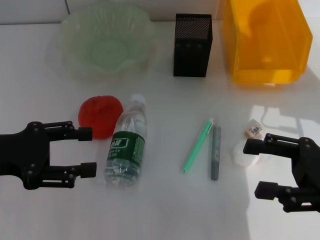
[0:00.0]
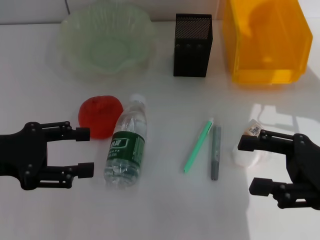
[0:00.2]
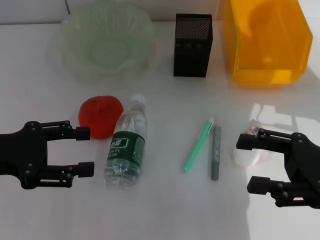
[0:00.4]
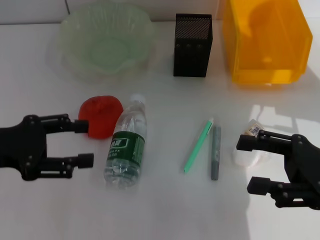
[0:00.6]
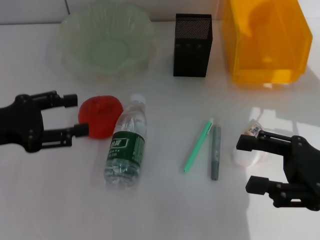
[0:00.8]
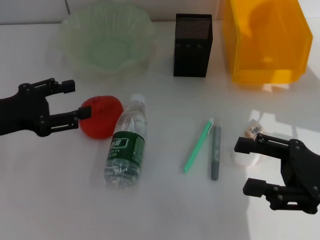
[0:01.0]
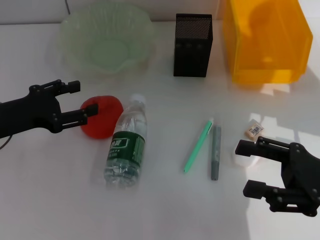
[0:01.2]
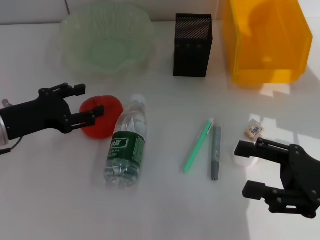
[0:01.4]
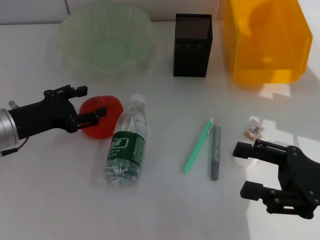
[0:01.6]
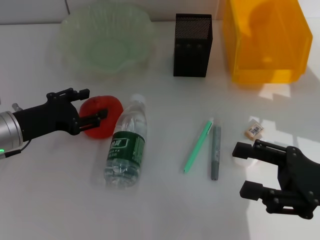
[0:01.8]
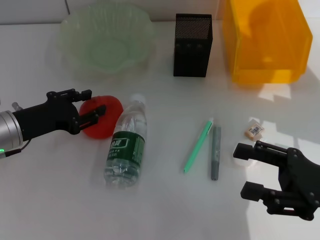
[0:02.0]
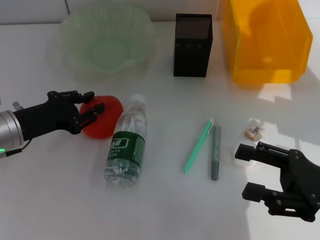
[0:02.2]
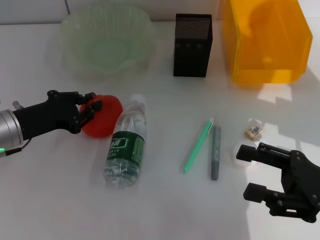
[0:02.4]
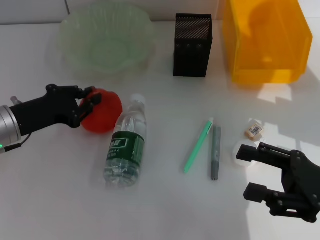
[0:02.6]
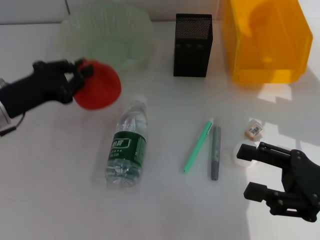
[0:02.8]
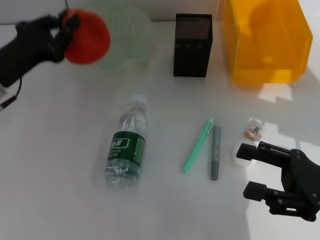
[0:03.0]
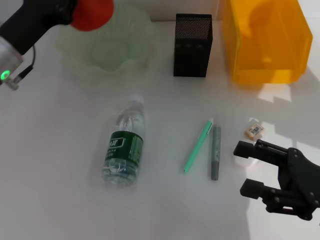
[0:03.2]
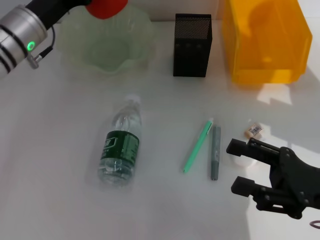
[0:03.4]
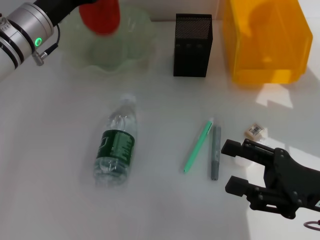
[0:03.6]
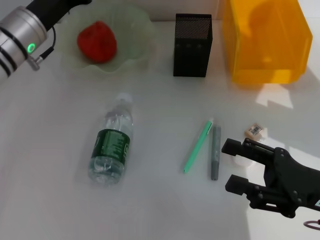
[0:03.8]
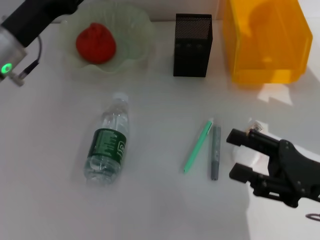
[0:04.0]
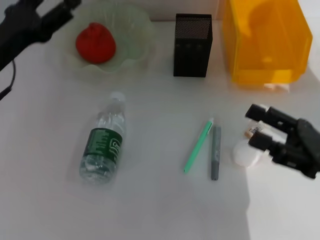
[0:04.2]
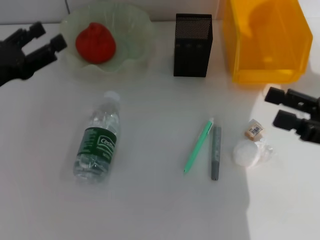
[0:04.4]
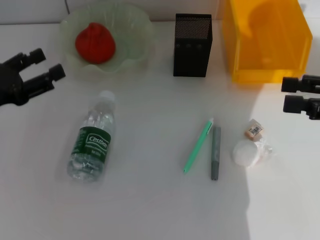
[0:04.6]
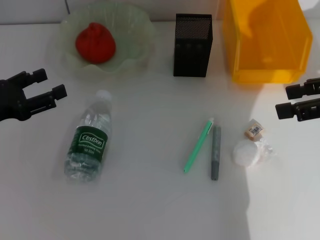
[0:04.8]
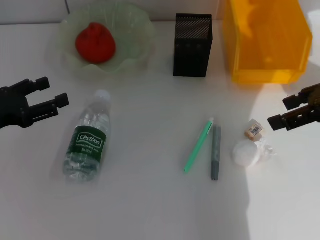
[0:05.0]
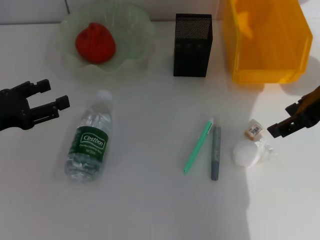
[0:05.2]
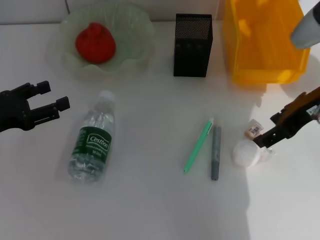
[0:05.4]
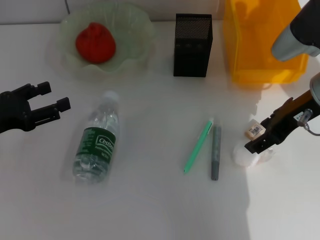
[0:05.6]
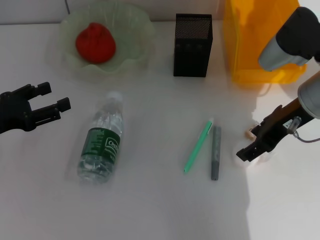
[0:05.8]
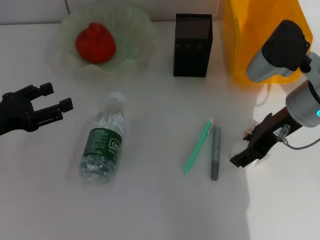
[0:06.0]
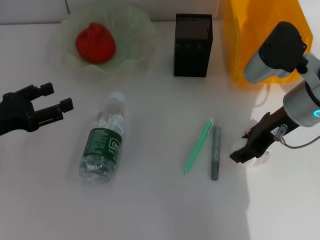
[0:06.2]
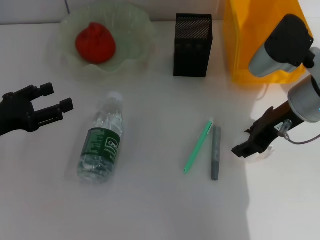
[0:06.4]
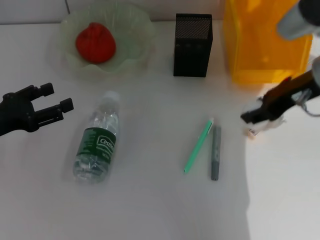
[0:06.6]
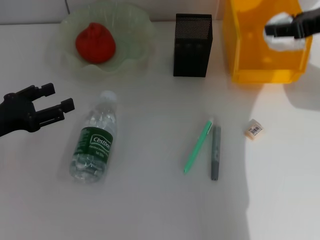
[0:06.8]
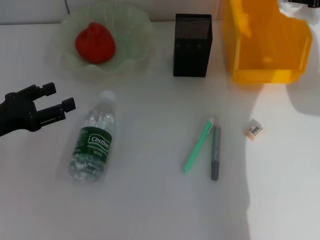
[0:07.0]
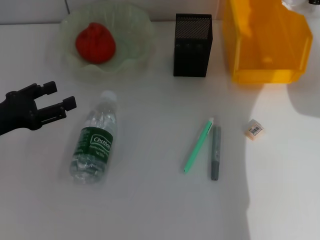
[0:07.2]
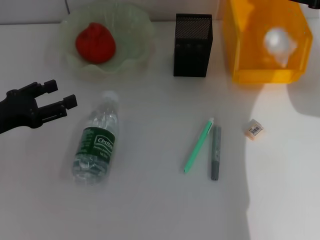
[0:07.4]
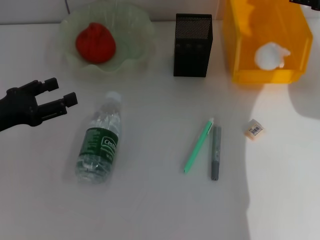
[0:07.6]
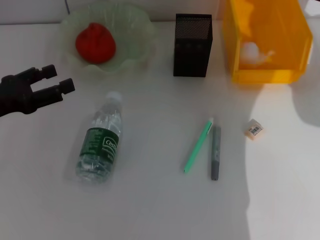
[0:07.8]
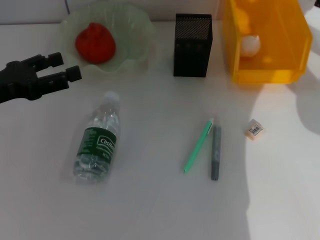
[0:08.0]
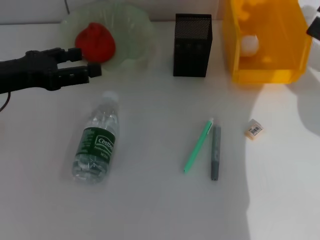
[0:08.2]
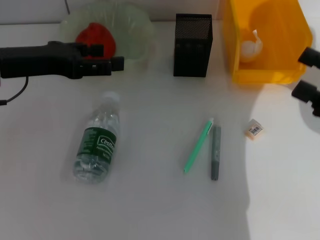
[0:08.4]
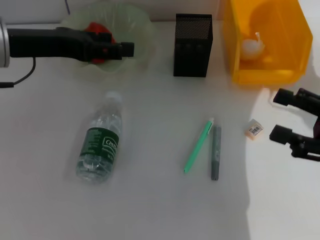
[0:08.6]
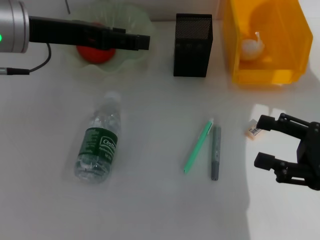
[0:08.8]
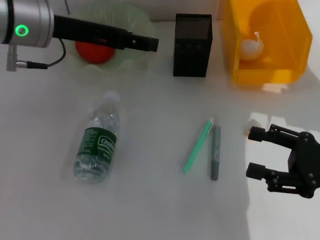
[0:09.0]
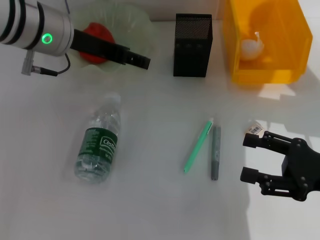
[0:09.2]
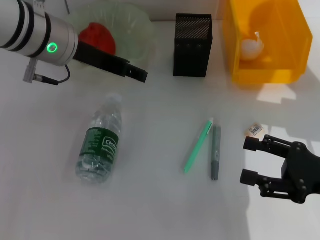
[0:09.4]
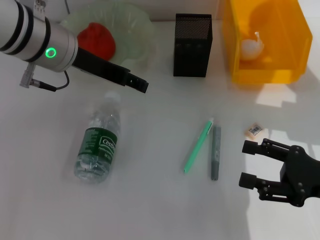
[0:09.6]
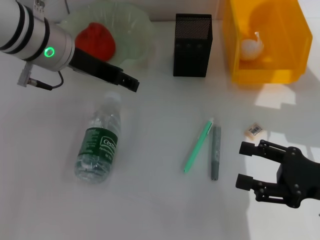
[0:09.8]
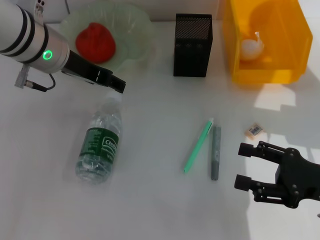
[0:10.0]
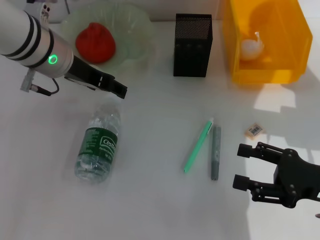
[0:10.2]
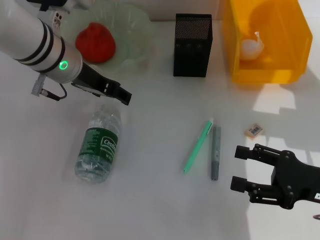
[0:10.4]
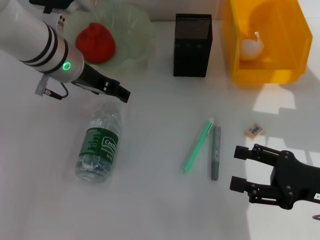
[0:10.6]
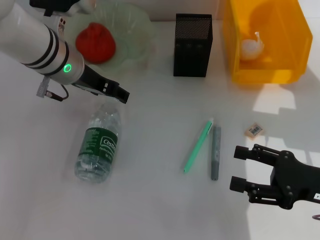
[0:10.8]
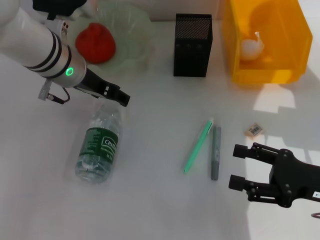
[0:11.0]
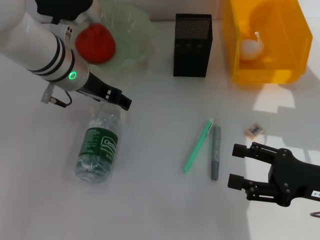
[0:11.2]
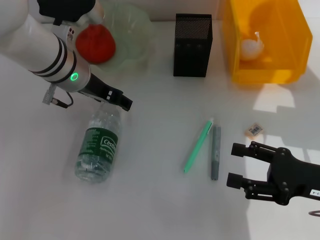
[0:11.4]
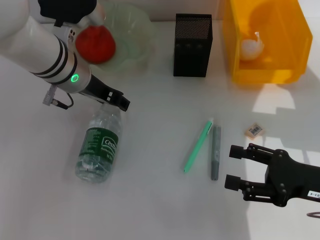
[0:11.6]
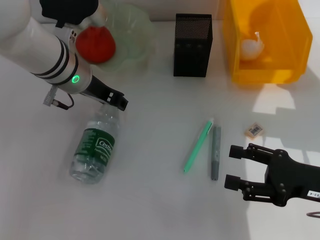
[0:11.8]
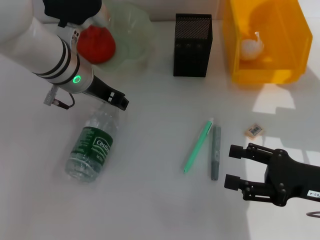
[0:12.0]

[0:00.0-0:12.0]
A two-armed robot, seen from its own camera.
Step, 0.0 to 2.2 s: Grab the orange with the left hand.
Step, 2.4 to 3.6 s: Place the orange into the fruit bowl with the left hand.
Step, 3.8 to 6.0 s: Grab the paper ball with the right hand.
Step, 6.2 to 7.4 s: Place the paper ball into the trash can with the right hand.
0.0 to 1.6 s: The left gripper goes some 10 cm downward and forward.
1.6 to 3.0 s: The left gripper closes its fingers.
3.0 to 4.4 s: The left gripper reaches approximately 10 cm forward, then returns, and opens. Meanwhile the right gripper shifts by some 5 cm.
4.4 to 6.0 s: The right gripper shifts about 15 cm to the left and forward.
6.0 to 7.6 s: The right gripper travels to the right by roughly 10 cm.
7.6 to 9.0 s: The left gripper travels upward, to the right and forward by some 20 cm, while the right gripper heads backward and downward, covering approximately 20 cm.
9.0 to 10.4 s: The left gripper travels downward by roughly 5 cm.
10.4 to 12.0 s: The left gripper closes up.

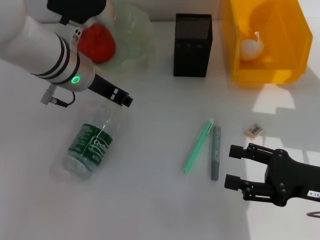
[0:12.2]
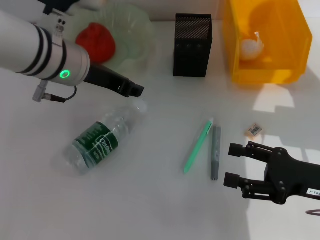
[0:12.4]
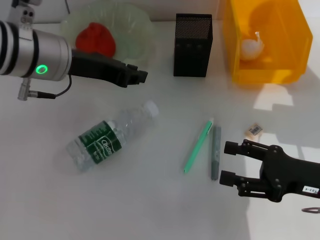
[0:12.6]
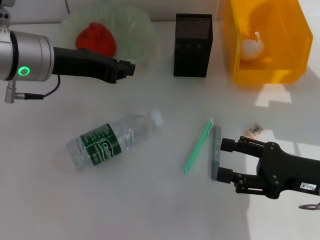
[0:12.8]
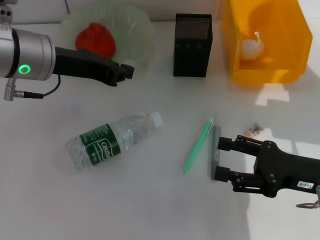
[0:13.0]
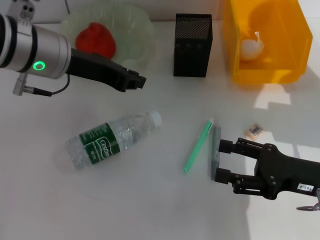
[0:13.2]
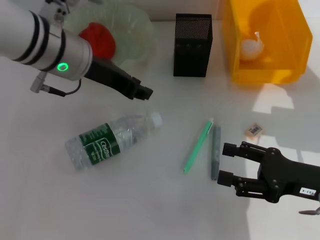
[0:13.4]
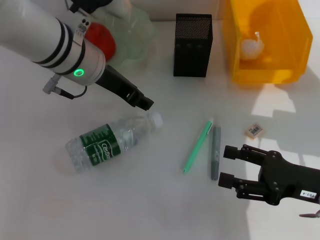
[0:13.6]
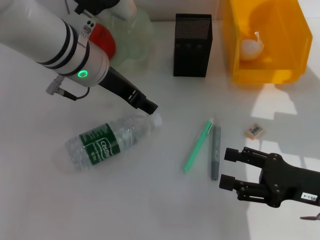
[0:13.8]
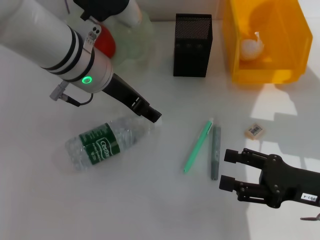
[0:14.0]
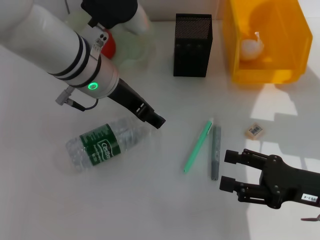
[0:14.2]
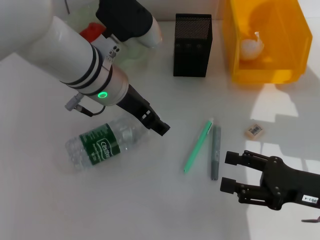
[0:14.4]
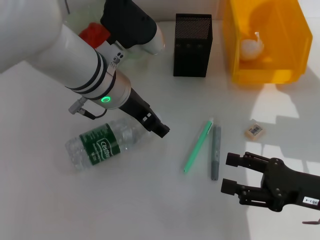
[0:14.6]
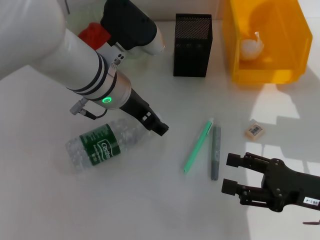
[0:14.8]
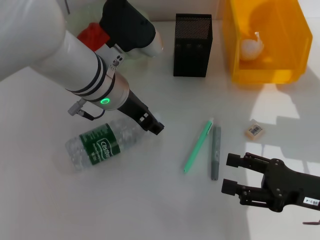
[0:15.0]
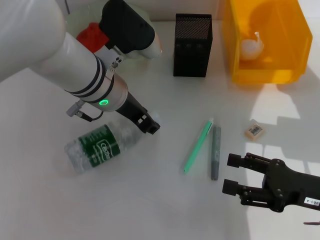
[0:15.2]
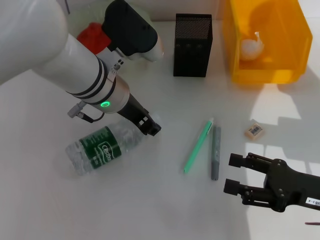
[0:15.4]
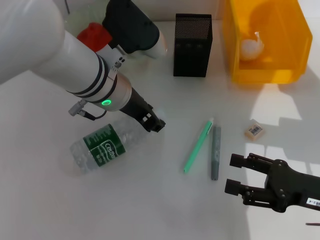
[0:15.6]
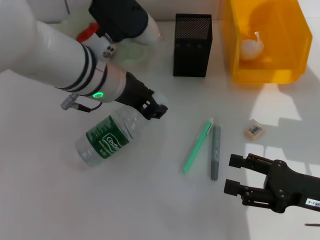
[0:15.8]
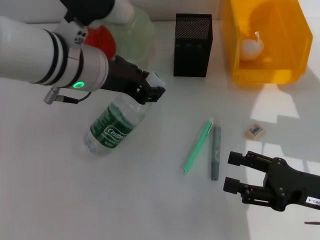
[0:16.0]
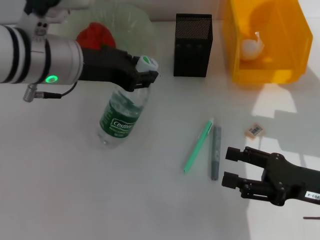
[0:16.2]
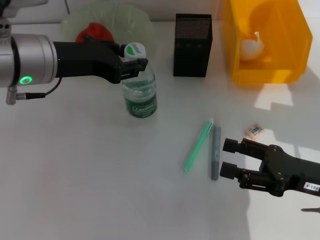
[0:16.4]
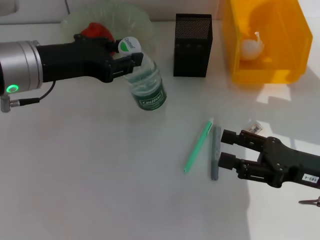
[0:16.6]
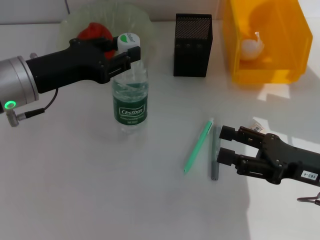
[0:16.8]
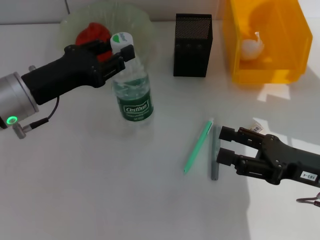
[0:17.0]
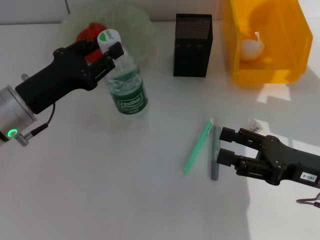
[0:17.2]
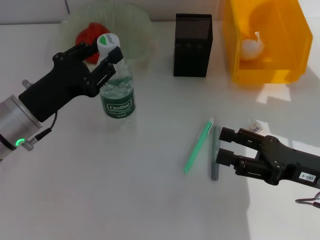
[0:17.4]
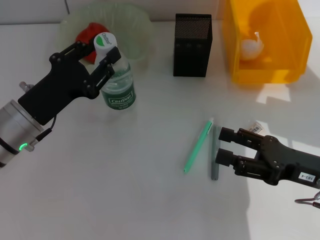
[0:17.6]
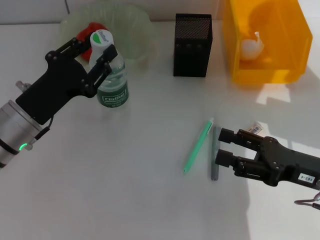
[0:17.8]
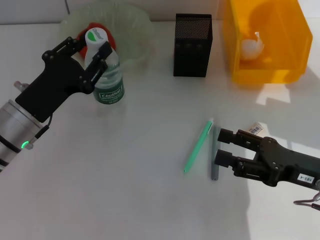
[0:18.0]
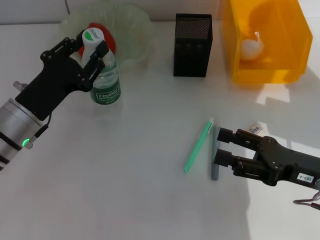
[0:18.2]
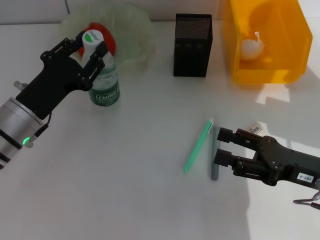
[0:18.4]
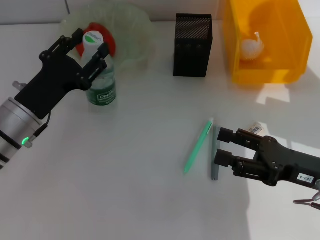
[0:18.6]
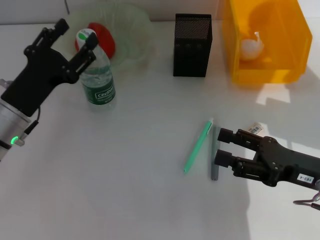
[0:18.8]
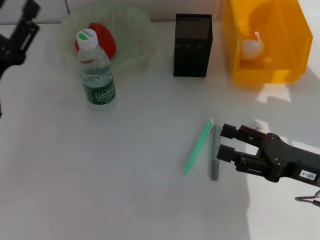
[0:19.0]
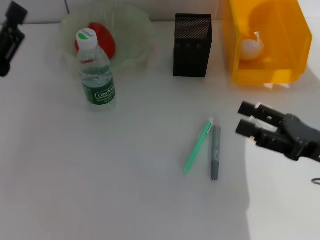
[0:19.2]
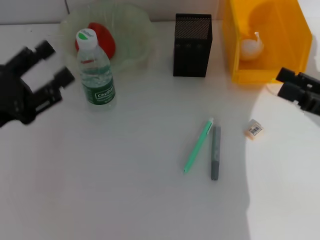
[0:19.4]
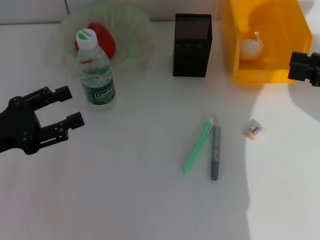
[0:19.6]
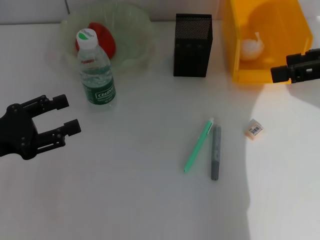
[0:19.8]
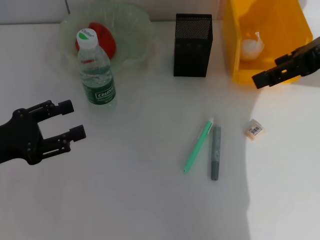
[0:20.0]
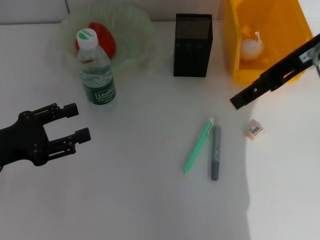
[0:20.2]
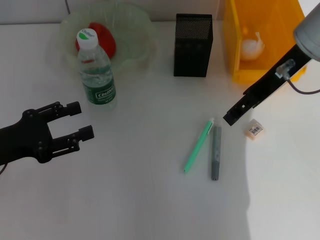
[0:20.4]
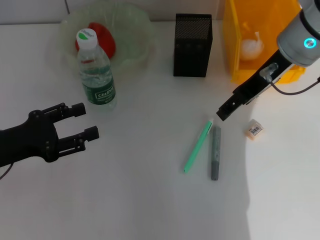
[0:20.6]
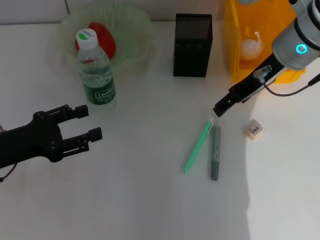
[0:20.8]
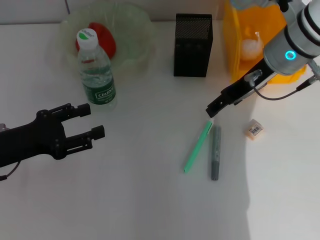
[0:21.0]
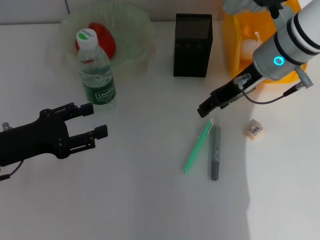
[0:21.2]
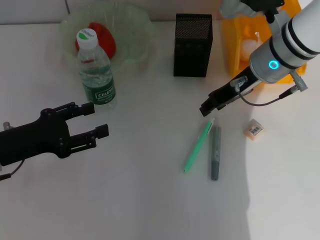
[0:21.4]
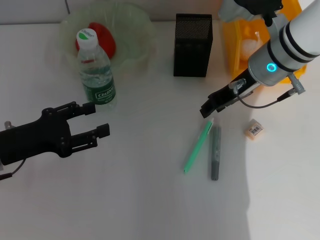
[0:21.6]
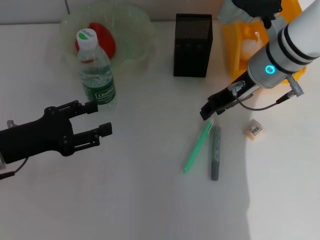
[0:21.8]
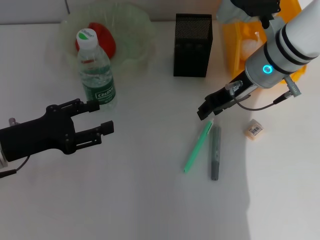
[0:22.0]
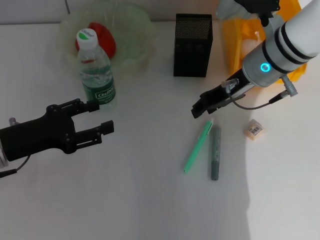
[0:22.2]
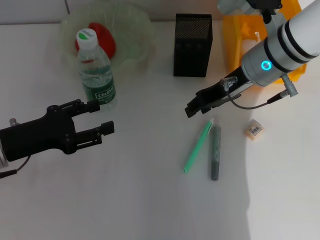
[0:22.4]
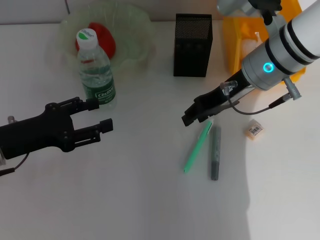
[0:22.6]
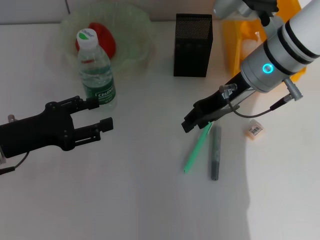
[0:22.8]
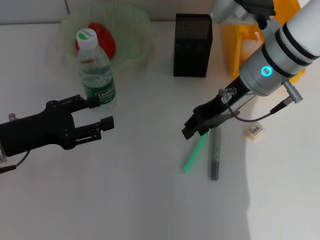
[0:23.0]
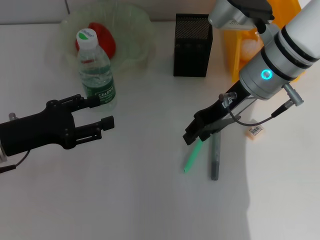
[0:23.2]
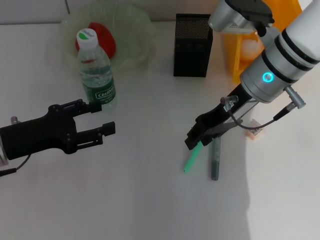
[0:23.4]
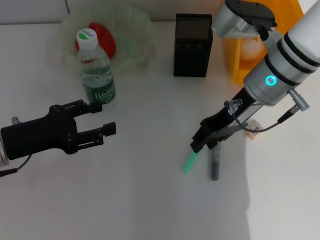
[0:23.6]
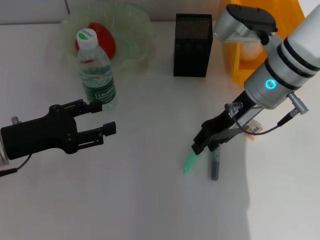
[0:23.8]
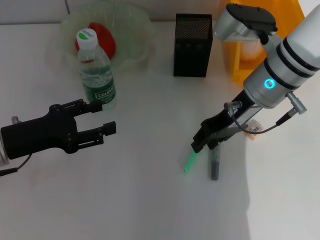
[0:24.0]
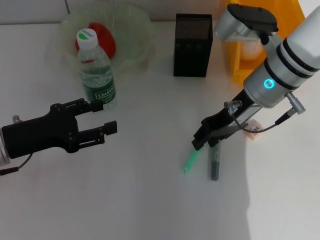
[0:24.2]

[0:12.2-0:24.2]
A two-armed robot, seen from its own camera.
Step, 12.2 to 15.4 s: Grab the water bottle with the left hand.
Step, 15.6 to 18.6 s: Place the water bottle on the table with the left hand.
12.2 to 13.8 s: The left gripper closes, then reopens.
13.8 to 15.2 s: The grippers stay close to where they were, moving slightly.
15.2 to 16.6 s: The left gripper shifts some 10 cm to the left and upward, and closes.
16.6 to 18.2 s: The left gripper moves downward, some 15 cm.
18.2 to 19.8 s: The left gripper goes about 10 cm to the left, and opens, while the right gripper shifts approximately 20 cm upward.
19.8 to 21.2 s: The right gripper moves to the left, forward and downward, roughly 20 cm.
21.2 to 22.6 s: The right gripper closes up.
22.6 to 24.2 s: The grippers move only a little.
